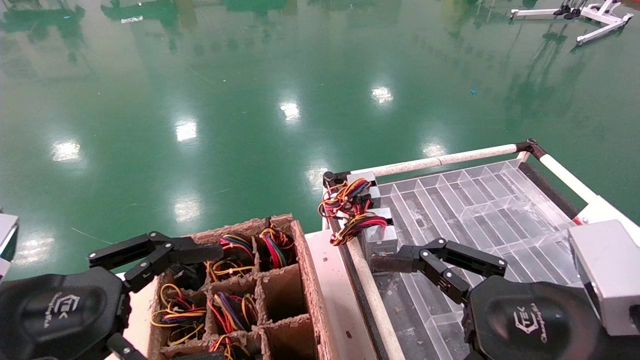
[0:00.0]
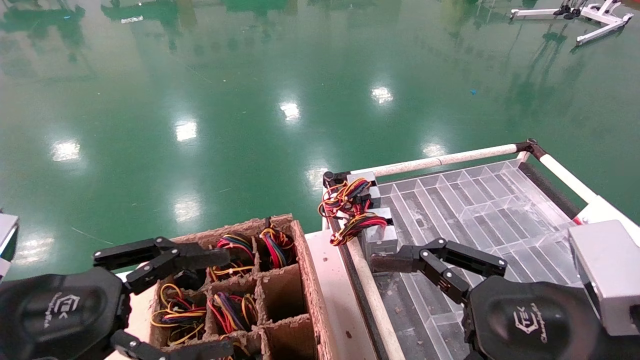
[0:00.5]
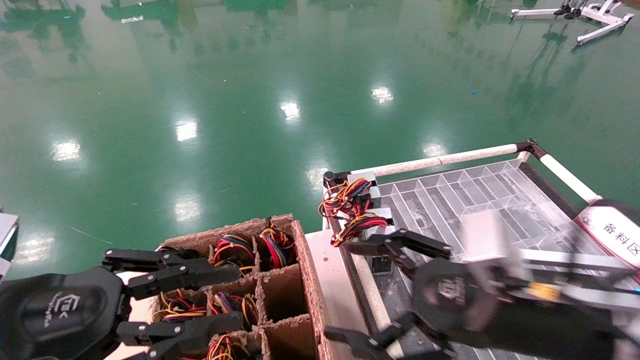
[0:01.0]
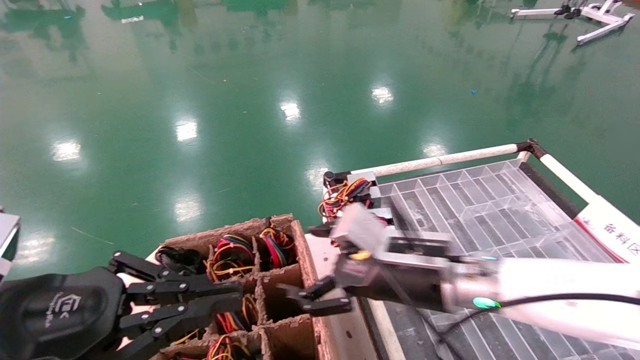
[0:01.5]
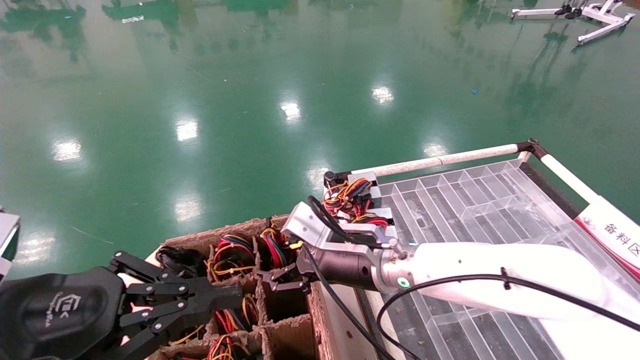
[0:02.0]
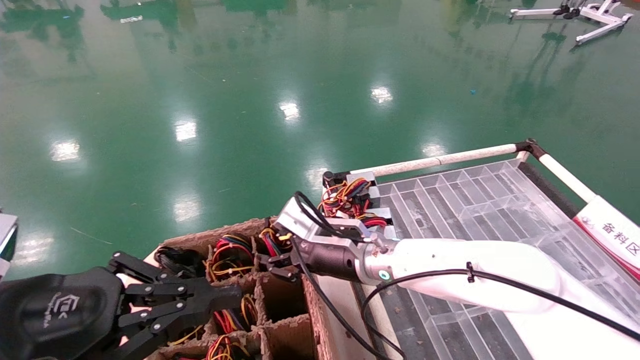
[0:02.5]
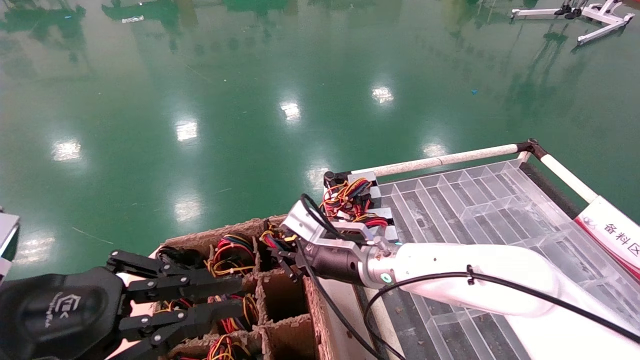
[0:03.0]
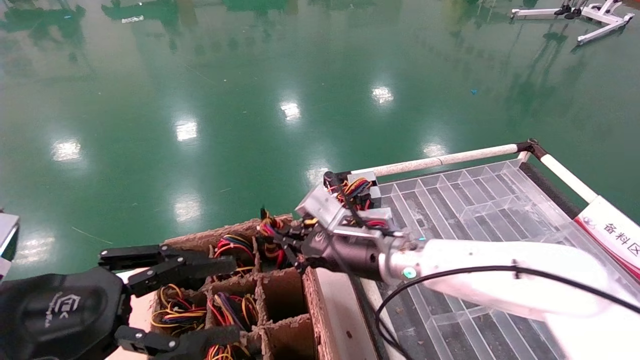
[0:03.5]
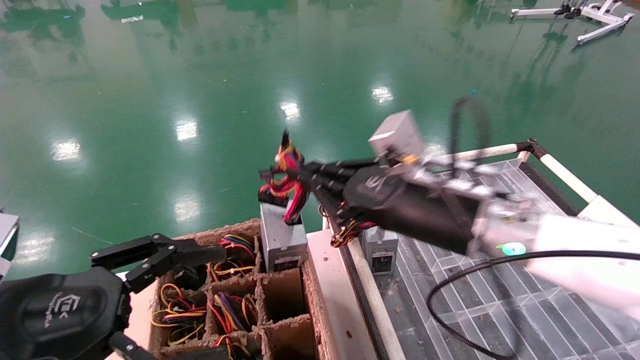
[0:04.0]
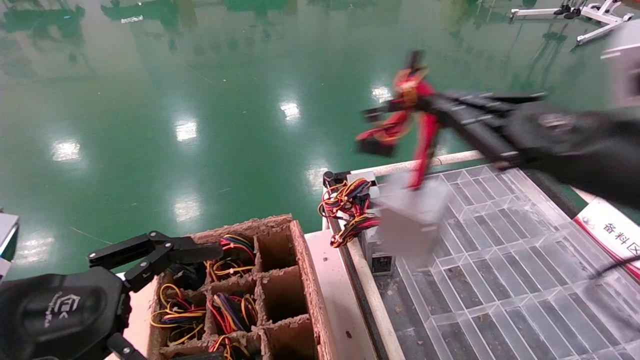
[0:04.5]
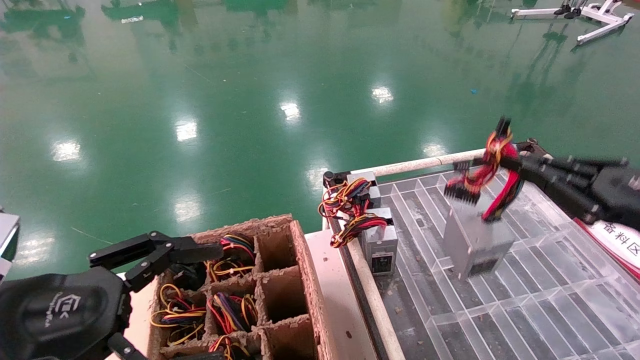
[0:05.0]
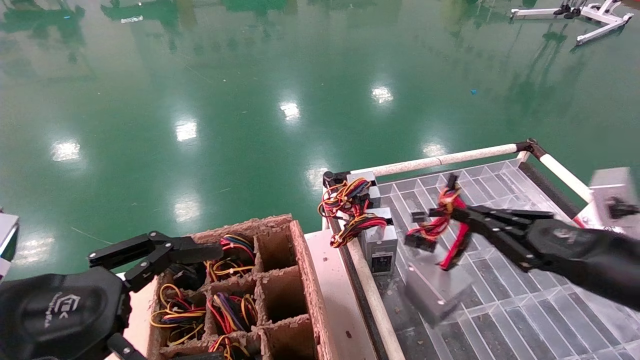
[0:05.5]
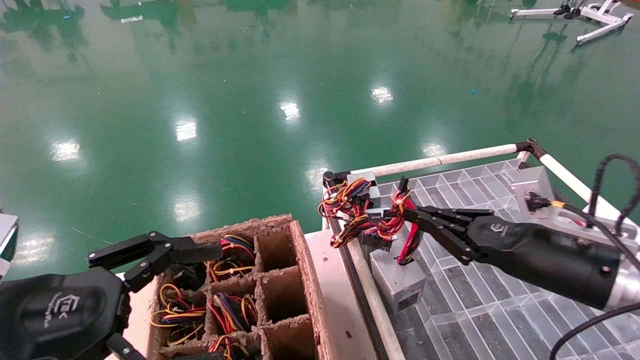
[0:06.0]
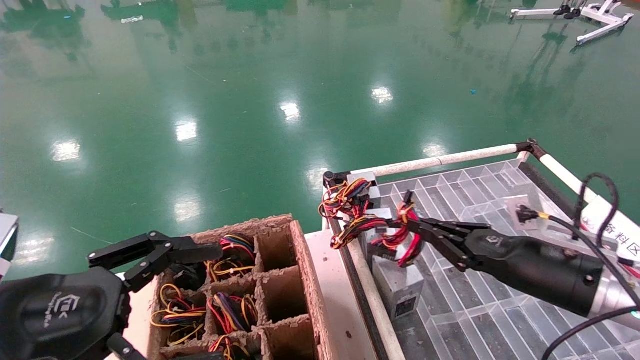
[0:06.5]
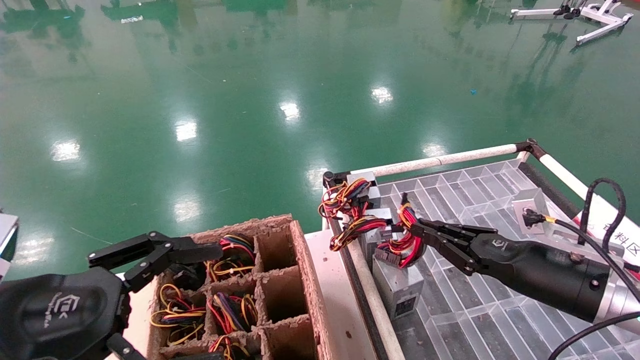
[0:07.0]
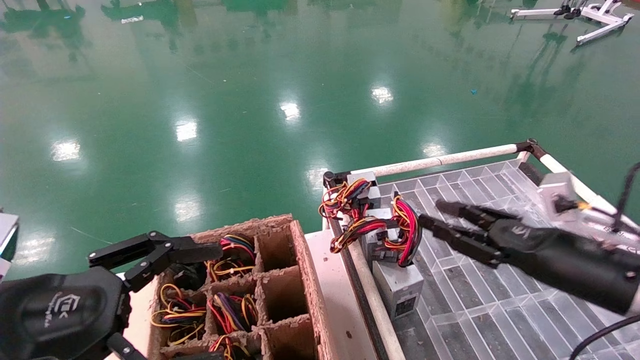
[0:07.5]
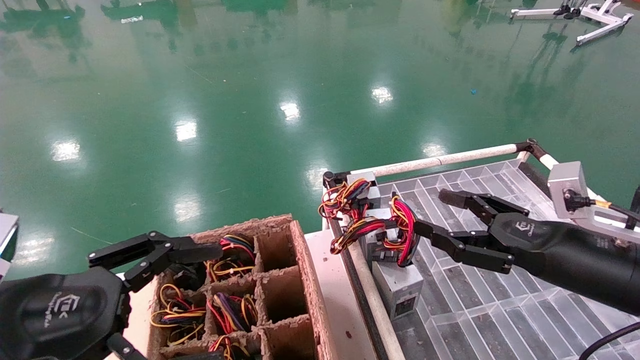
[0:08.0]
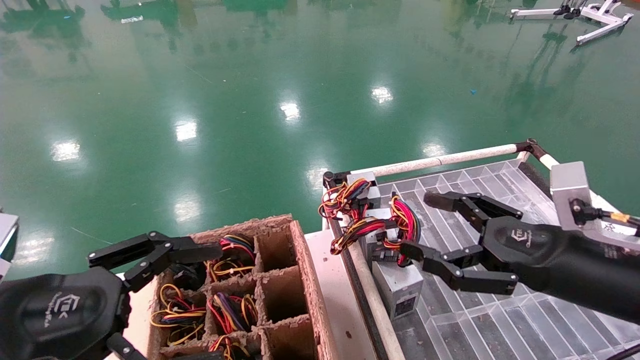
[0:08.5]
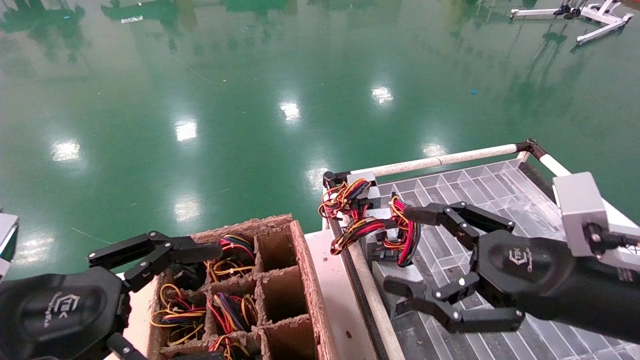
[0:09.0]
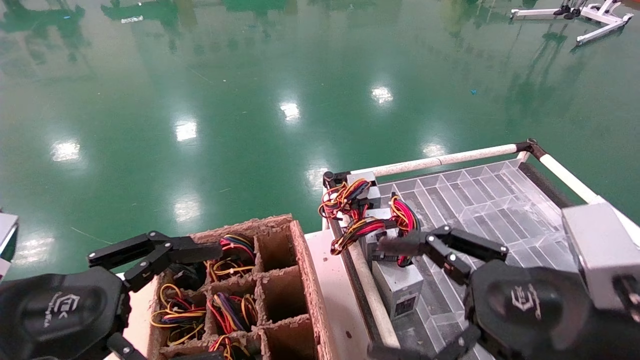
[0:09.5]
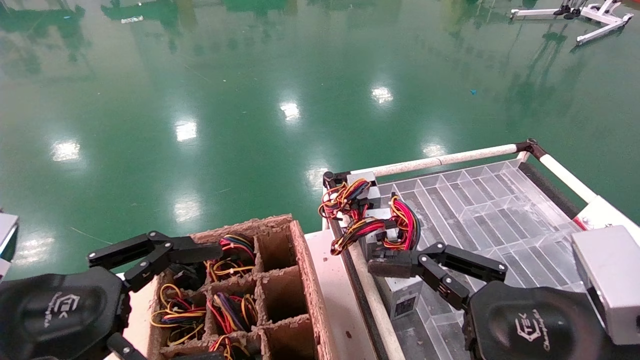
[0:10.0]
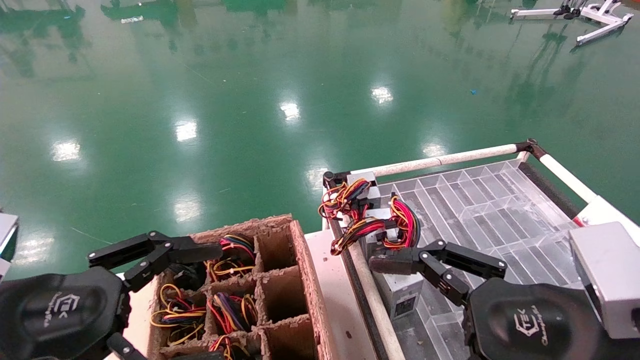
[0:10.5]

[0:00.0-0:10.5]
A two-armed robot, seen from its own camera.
Step, 0:01.0 to 0:03.0: Grab and lift the power supply from the large box.
Step, 0:03.5 to 0:07.0: Place the power supply on the operating table.
0:00.0 to 0:02.0: The left gripper closes up, while the right gripper moves forward and to the left, approximately 25 cm.
0:02.0 to 0:04.0: The left gripper opens its fingers. The right gripper goes approximately 15 cm upward, to the right and backward, and closes up.
0:04.0 to 0:06.5: The right gripper is displaced to the right and downward by approximately 20 cm.
0:06.5 to 0:08.5: The right gripper is displaced backward by about 5 cm, and opens up.
0:08.5 to 0:10.5: The right gripper shifts roughly 10 cm backward and to the left.

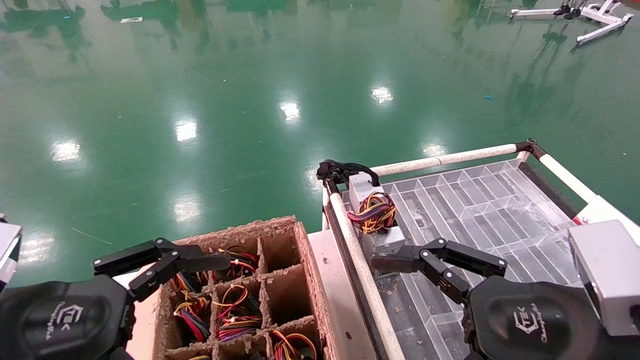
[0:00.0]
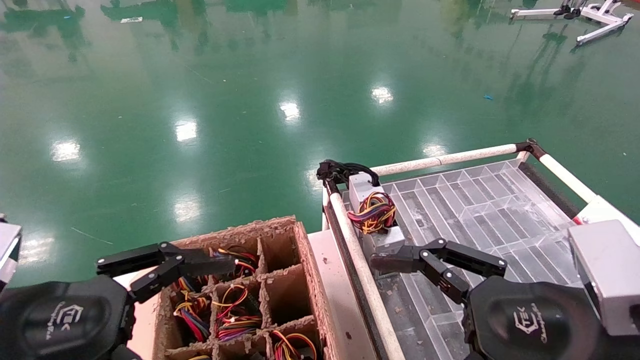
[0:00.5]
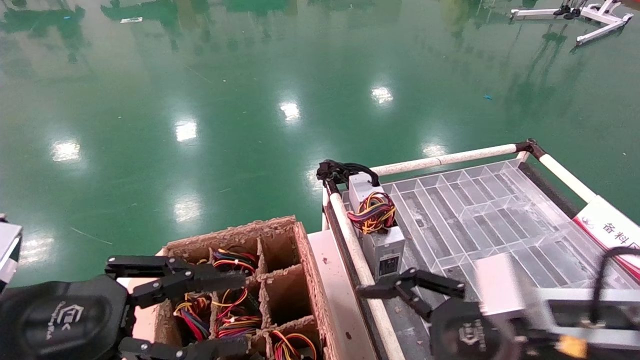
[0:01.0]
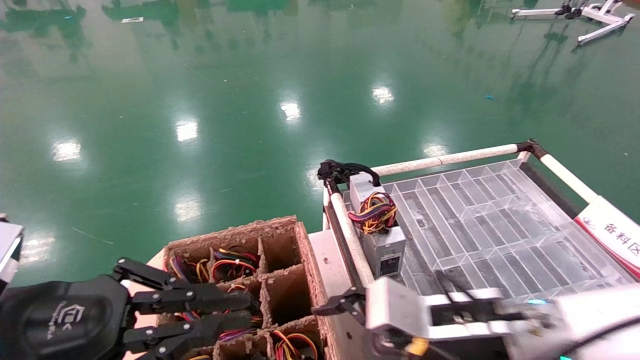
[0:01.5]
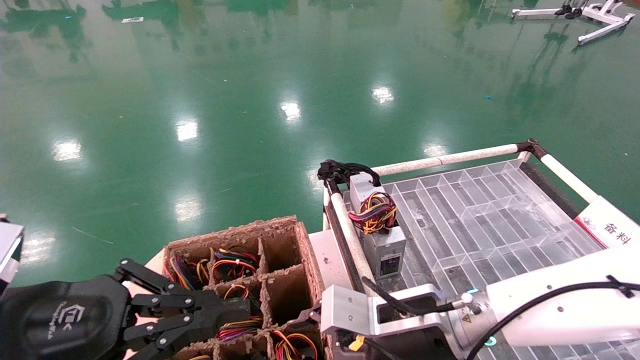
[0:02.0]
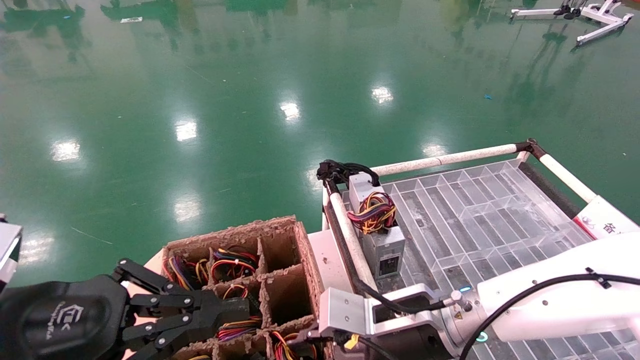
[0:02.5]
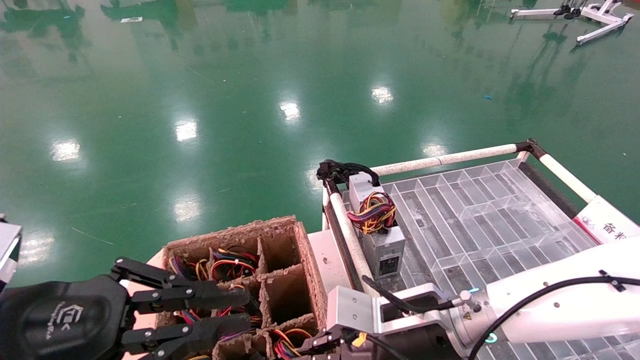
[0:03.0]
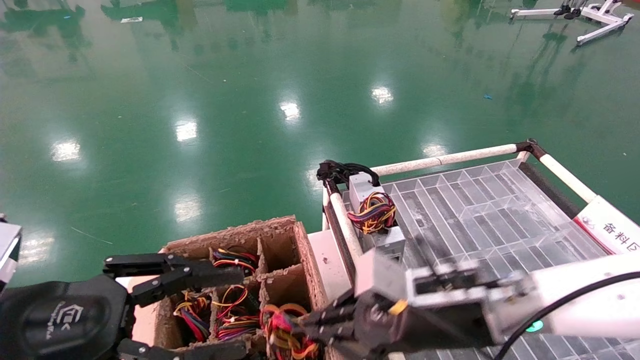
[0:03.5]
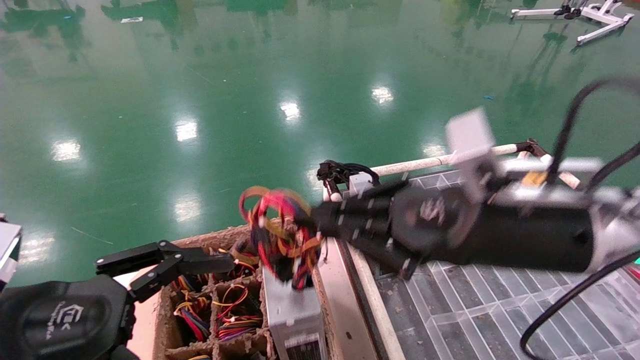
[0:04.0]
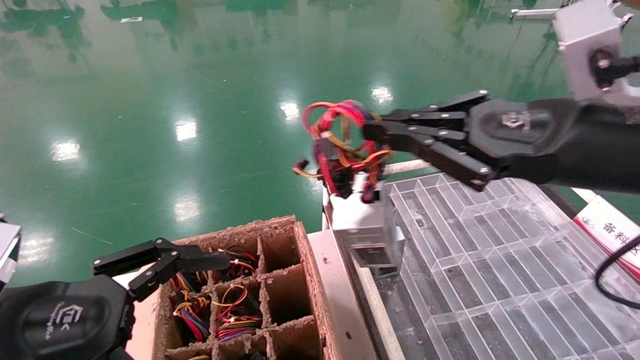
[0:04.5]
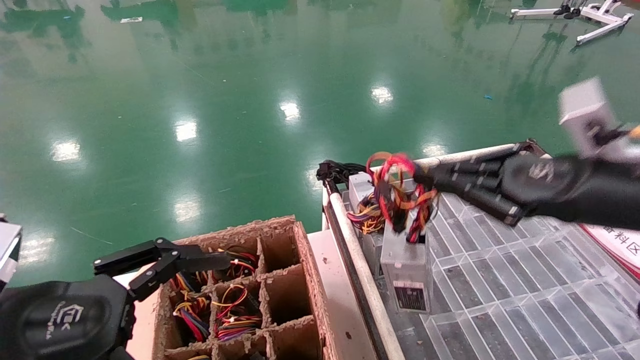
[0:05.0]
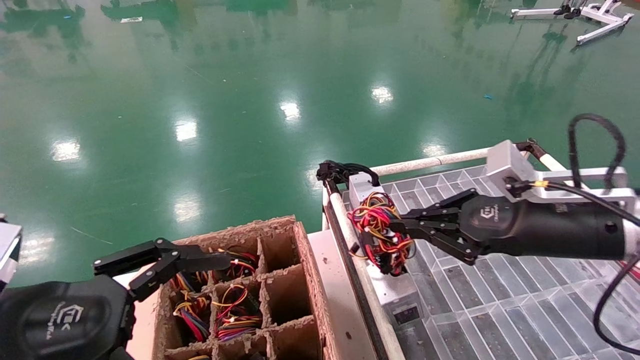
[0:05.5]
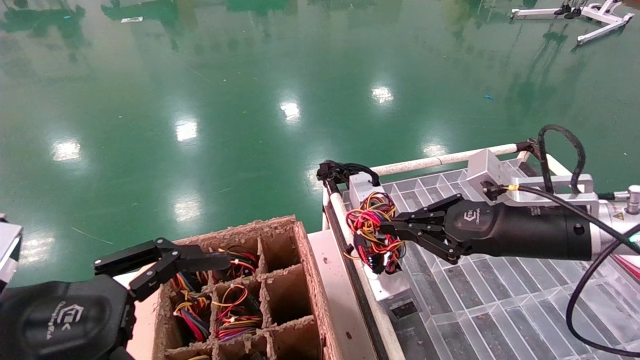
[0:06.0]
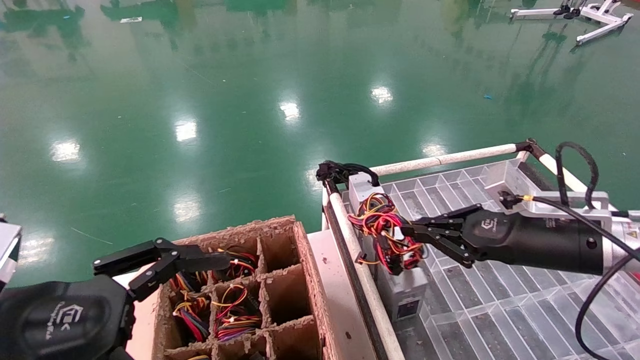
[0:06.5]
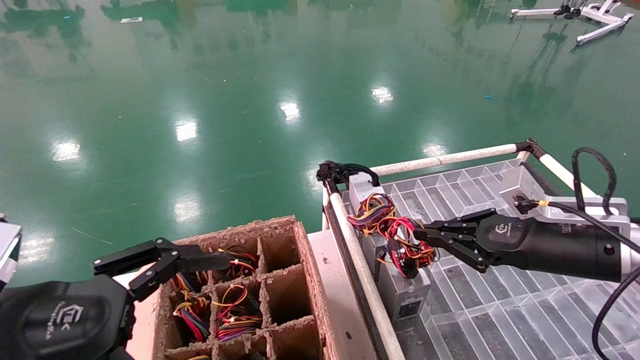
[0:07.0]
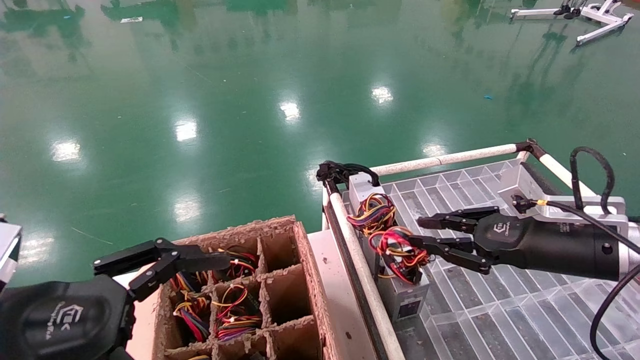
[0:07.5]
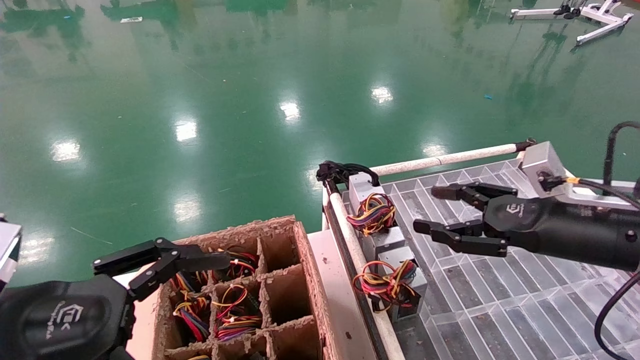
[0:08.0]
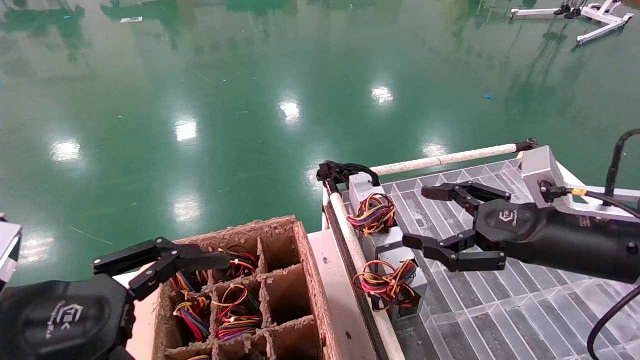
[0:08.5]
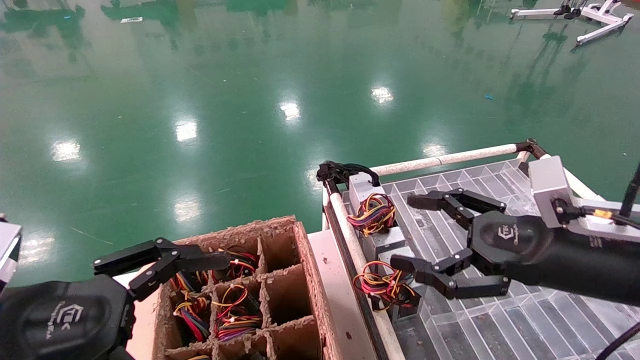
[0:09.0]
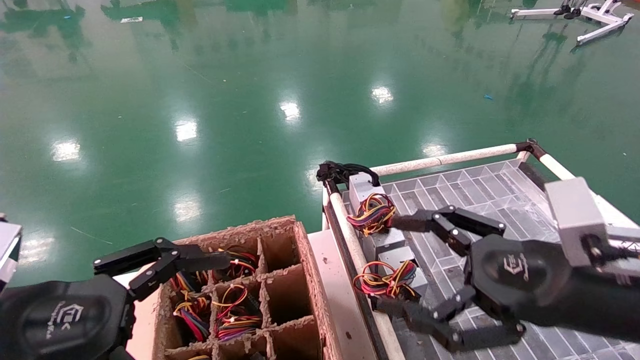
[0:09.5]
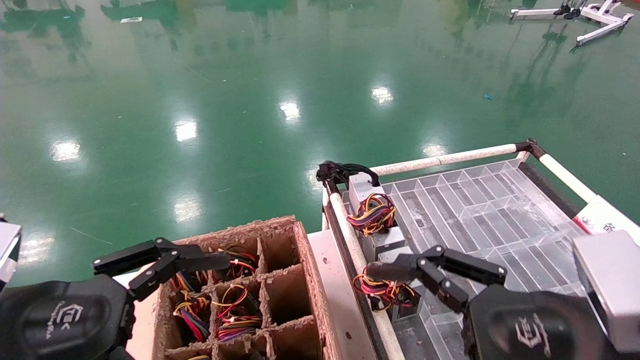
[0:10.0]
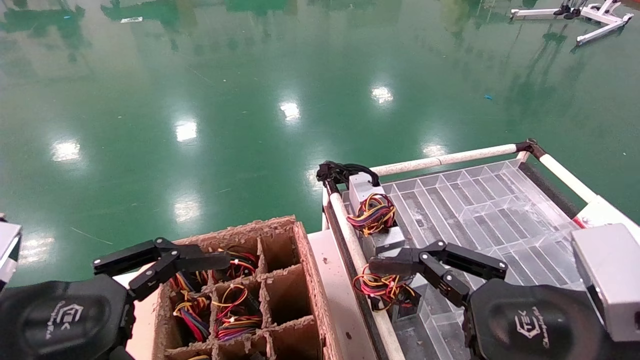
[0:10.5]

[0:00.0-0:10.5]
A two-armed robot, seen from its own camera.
Step, 0:01.0 to 0:02.5: Grab and lift the power supply from the large box.
Step, 0:03.0 to 0:07.0: Place the power supply on the operating table.
0:00.0 to 0:02.0: The left gripper closes, while the right gripper goes about 20 cm forward, to the left and downward.
0:02.0 to 0:04.0: The left gripper opens; the right gripper moves upward and to the right, roughly 15 cm, and closes up.
0:04.0 to 0:06.5: The right gripper goes about 15 cm to the right, forward and downward.
0:06.5 to 0:08.5: The right gripper opens up.
0:08.5 to 0:10.5: The right gripper goes roughly 15 cm backward and to the left.
